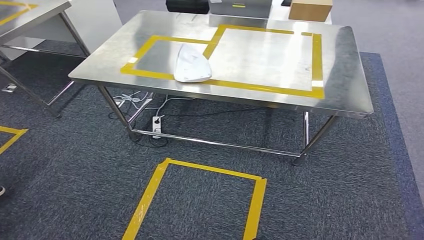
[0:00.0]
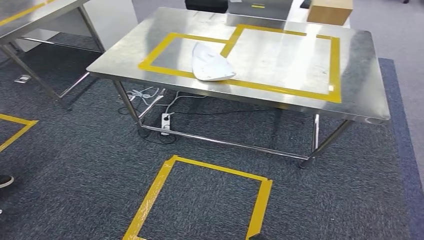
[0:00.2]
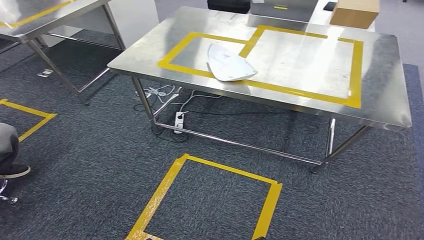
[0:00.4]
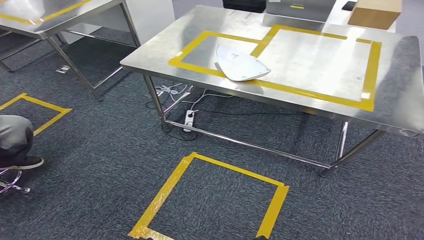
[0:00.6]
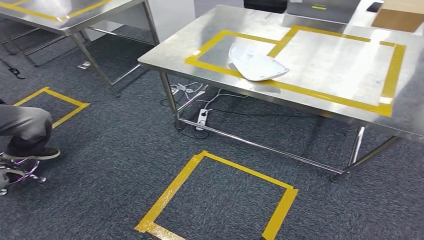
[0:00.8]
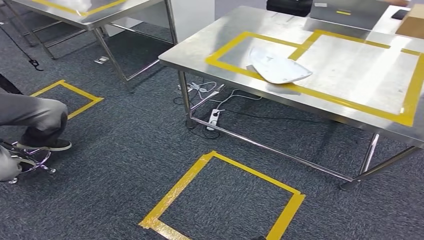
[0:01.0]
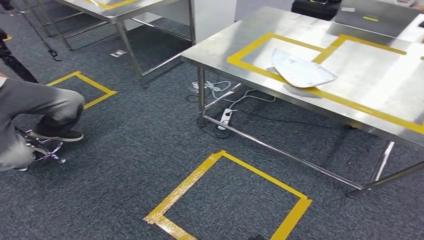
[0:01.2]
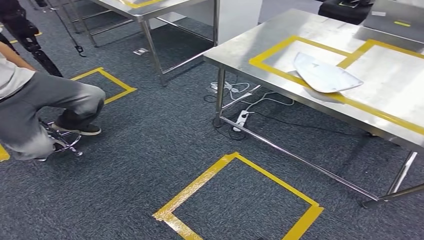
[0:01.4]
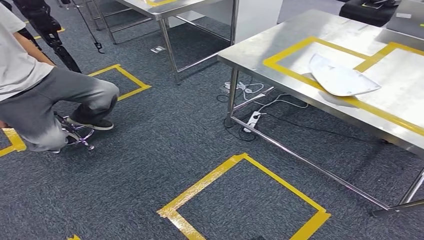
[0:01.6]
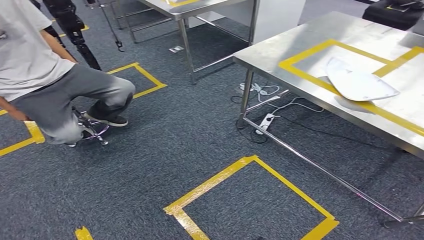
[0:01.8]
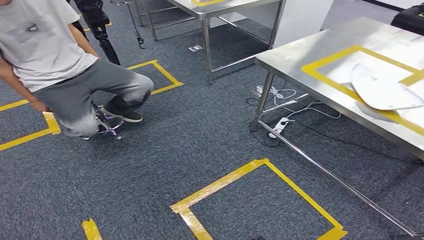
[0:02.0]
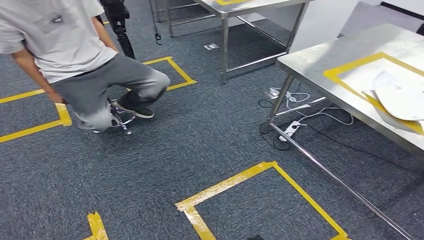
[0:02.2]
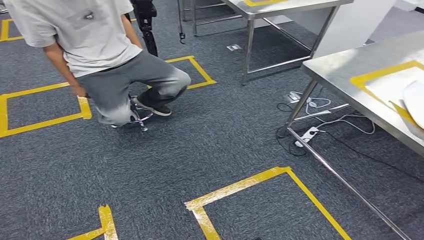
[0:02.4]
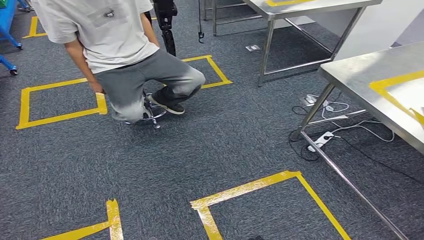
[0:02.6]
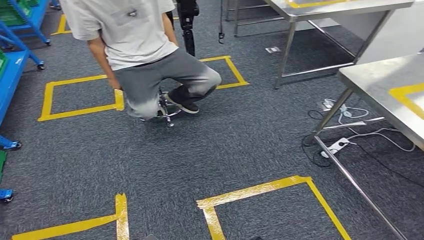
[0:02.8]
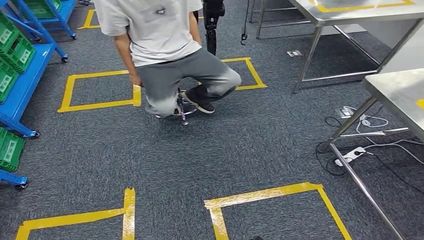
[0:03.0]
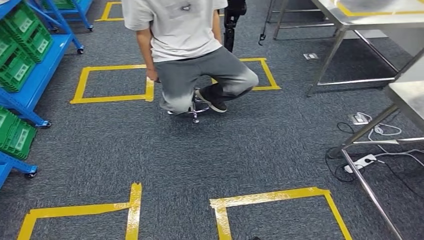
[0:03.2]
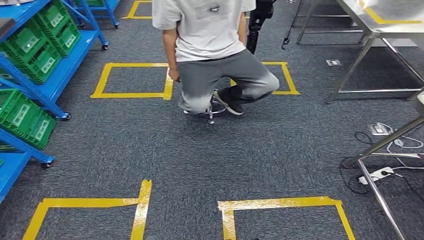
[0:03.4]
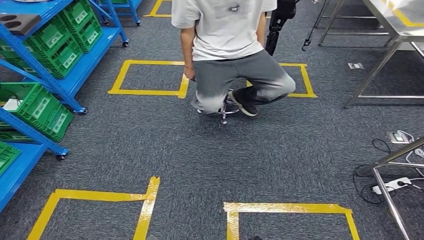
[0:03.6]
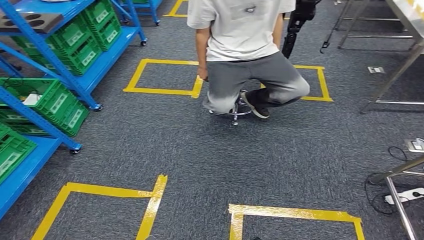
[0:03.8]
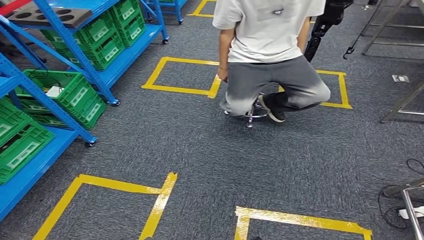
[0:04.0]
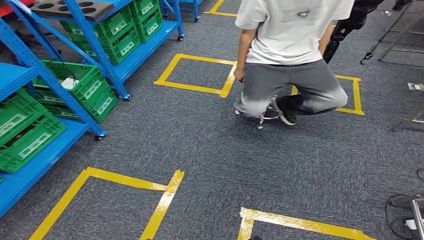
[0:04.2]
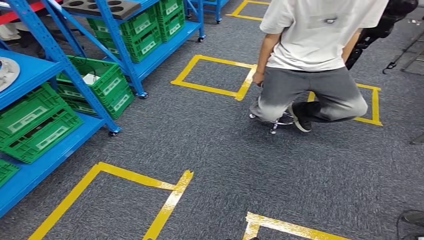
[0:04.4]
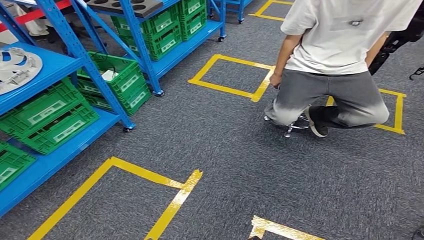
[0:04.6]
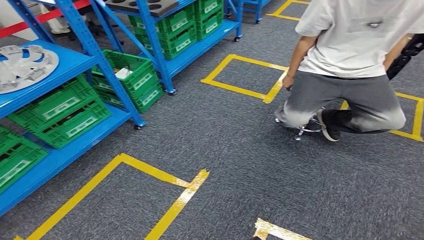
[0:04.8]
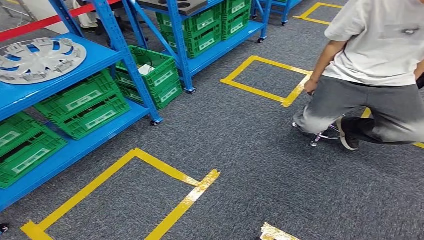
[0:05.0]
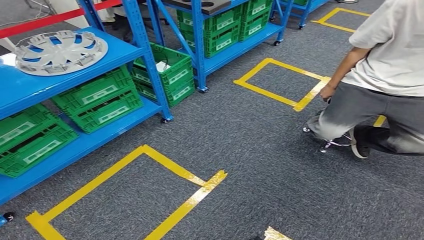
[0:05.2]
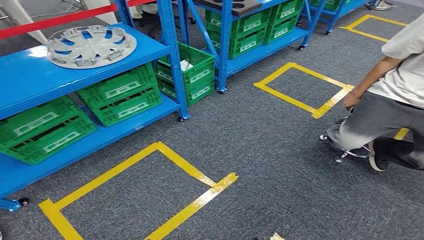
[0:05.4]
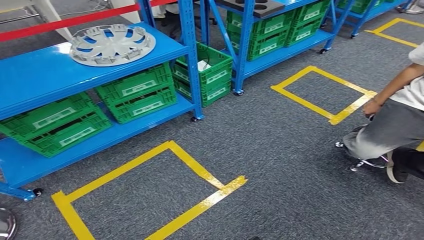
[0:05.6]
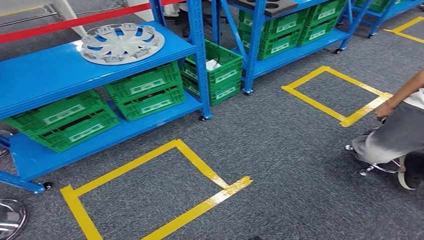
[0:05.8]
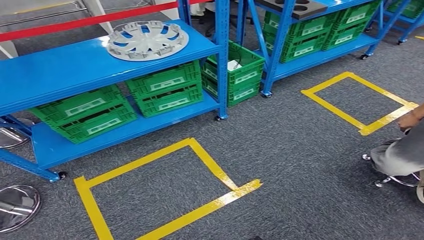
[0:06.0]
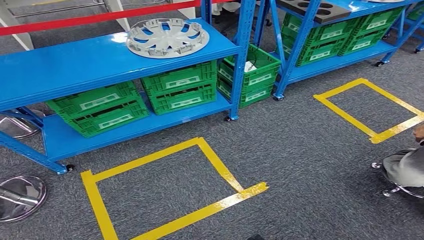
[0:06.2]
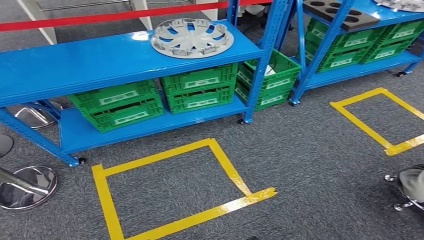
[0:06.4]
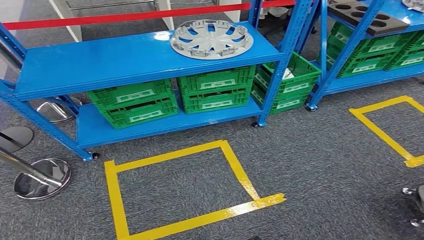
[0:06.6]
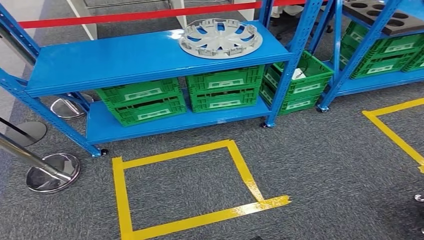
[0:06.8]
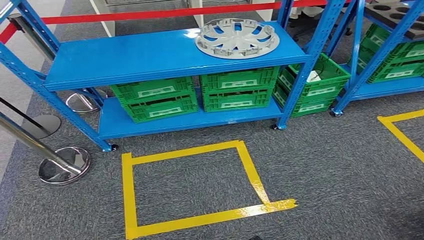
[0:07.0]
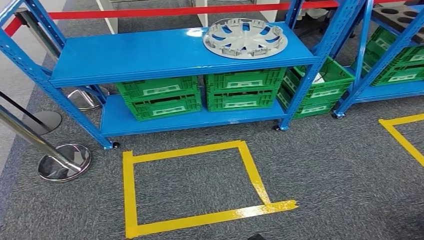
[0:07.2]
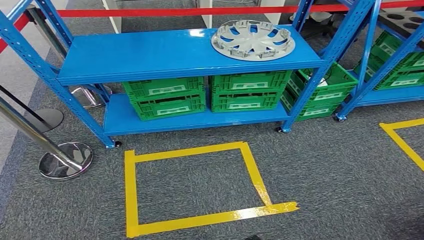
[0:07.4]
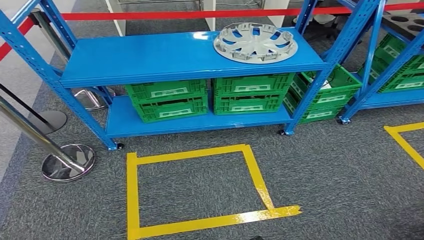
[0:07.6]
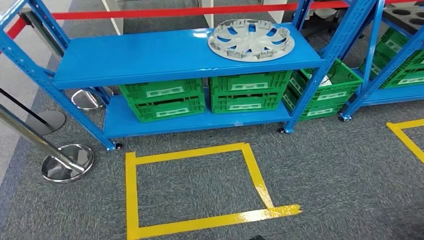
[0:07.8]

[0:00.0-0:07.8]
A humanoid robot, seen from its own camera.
Step, 0:00.0 to 0:07.8: Move to the initial position of the workbench.
